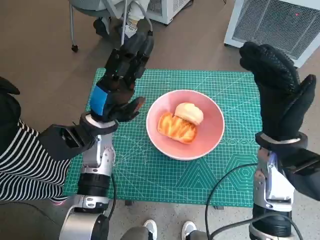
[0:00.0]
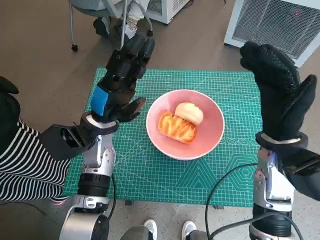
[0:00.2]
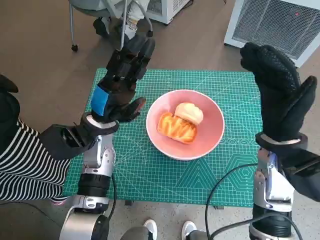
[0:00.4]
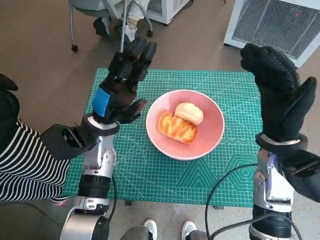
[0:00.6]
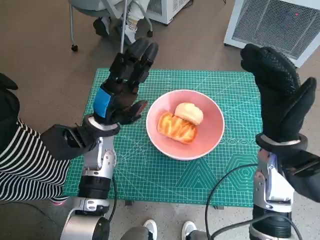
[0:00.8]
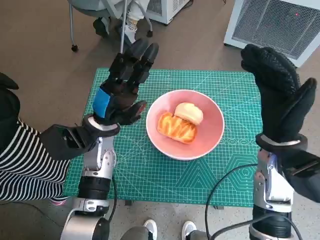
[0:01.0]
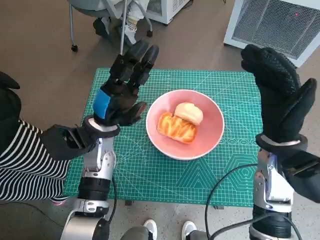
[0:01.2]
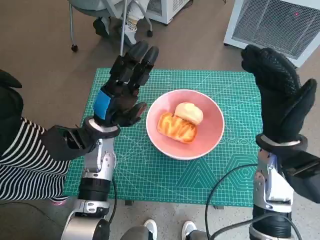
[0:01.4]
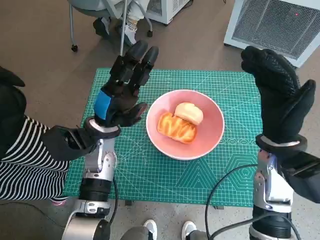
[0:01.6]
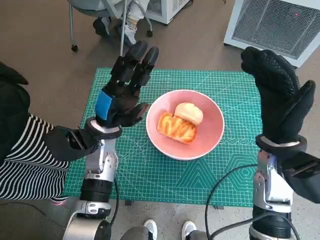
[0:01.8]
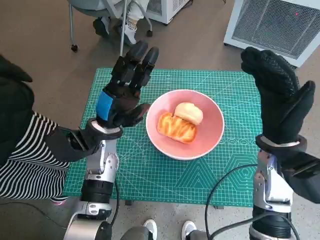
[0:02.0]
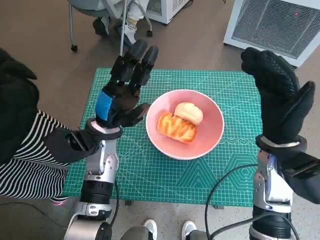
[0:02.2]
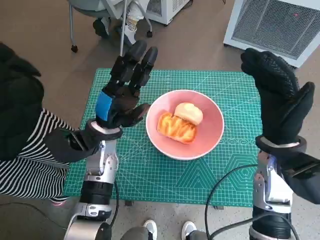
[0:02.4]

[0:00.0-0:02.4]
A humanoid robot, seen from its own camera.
Task of the whole recording: Push the bowl into the center of the table and put the bread into the bowl.
0:00.0 to 0:01.2: Neither hand changes place.
0:01.2 to 0:02.4: The two hands keep their place.
